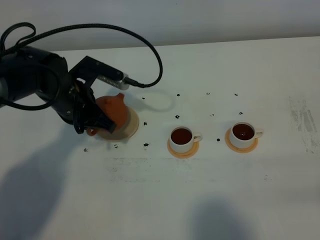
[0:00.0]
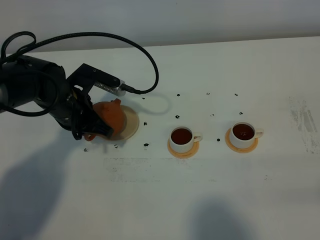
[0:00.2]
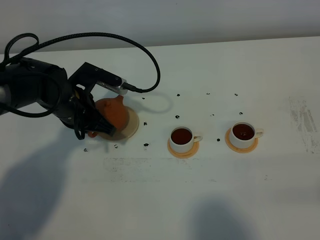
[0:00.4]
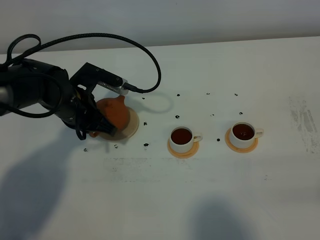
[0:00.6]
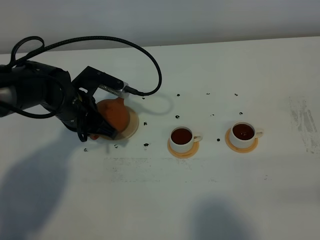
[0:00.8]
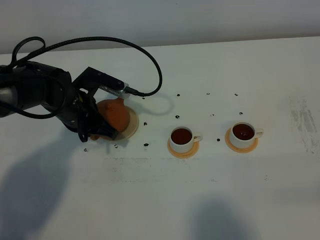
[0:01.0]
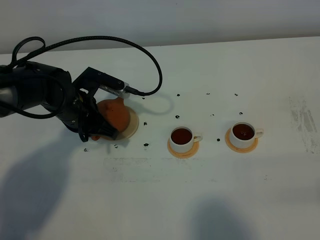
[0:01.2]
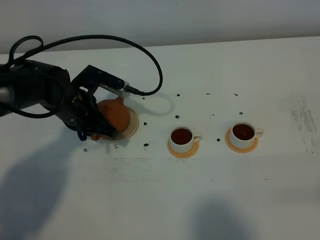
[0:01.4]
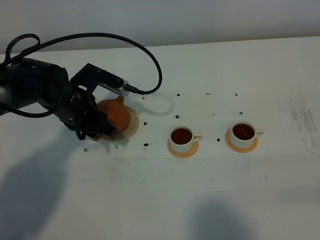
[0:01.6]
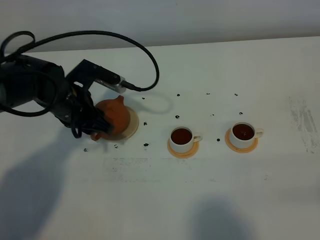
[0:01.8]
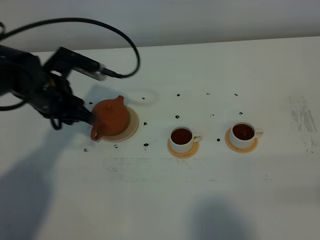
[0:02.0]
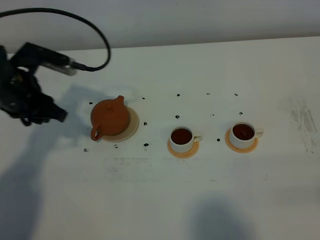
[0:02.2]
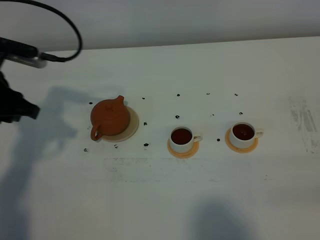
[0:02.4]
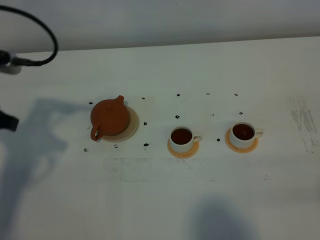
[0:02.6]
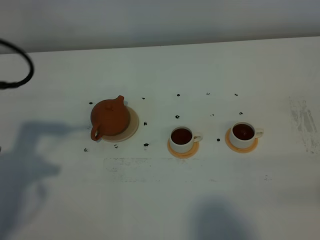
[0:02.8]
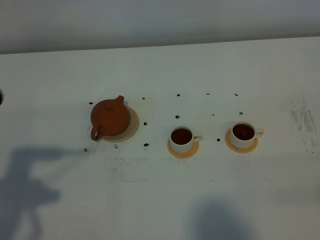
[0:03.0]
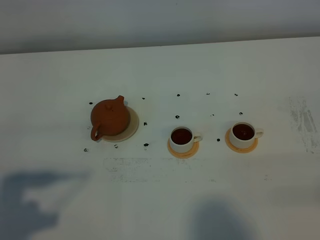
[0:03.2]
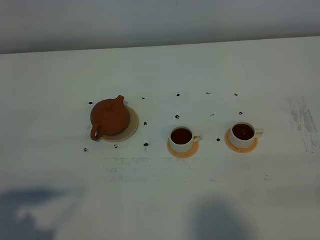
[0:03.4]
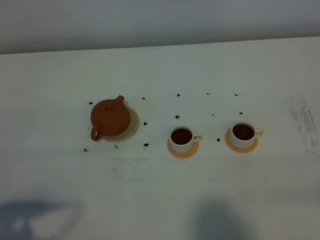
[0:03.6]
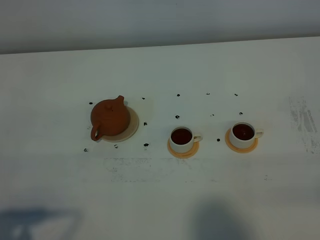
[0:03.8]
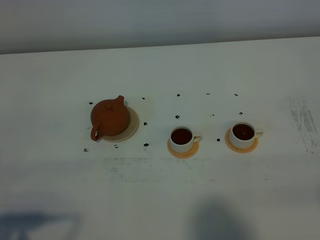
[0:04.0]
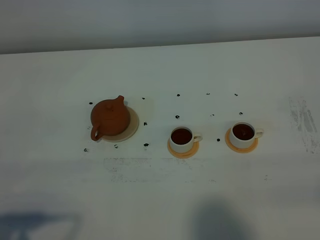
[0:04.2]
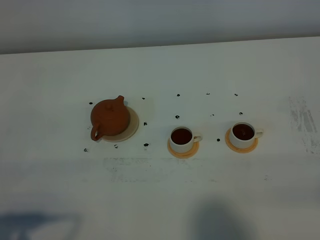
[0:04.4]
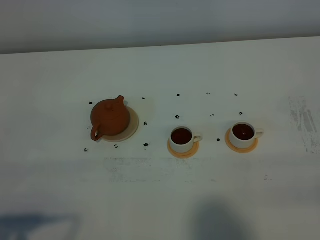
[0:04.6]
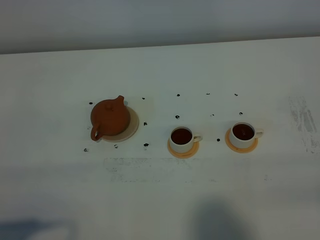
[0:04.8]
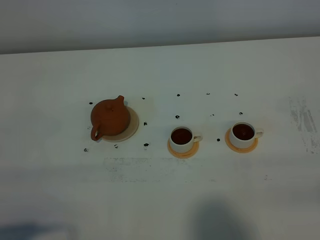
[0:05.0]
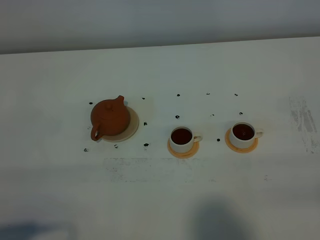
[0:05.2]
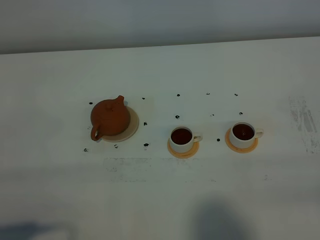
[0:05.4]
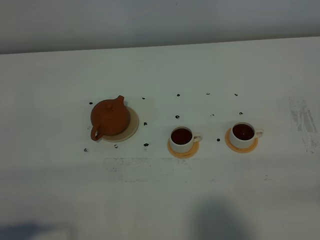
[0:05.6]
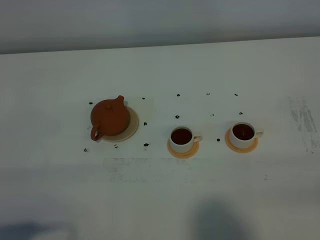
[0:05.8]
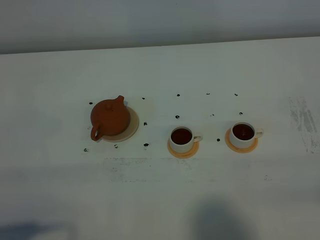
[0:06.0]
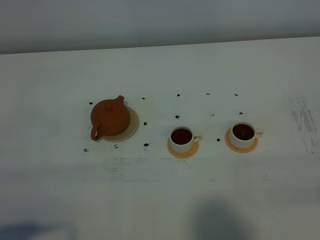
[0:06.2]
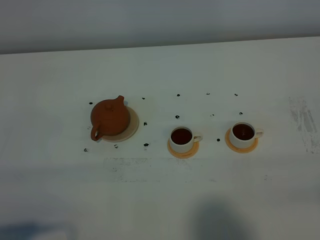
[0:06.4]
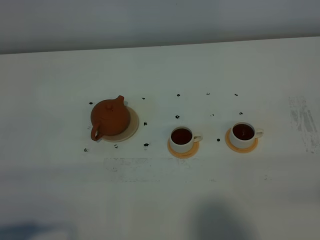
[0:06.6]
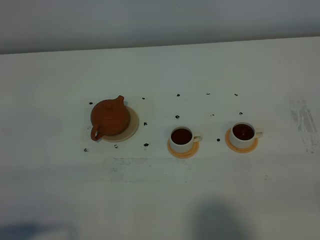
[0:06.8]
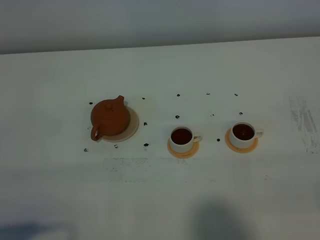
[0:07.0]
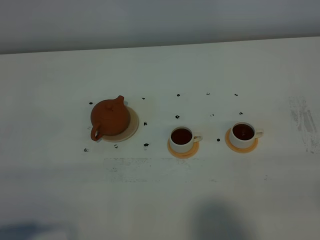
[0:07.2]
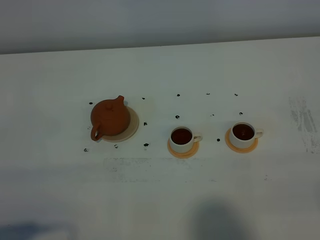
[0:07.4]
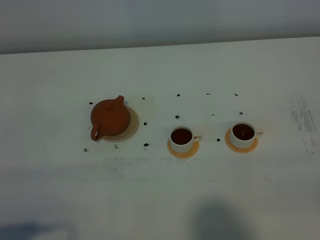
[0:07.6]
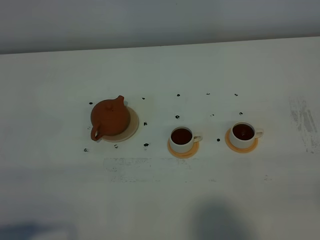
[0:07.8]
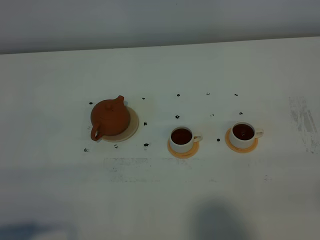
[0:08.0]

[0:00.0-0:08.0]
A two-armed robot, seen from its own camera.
Task of the whole recording: grasp the brown teapot and pour the tea into the two white teacups one by one, put the brown teapot back in its original place.
0:00.0 to 0:01.6: The left gripper opens its fingers.
0:01.6 to 0:03.2: The left gripper shifts some 35 cm backward, upward and to the left.
0:03.2 to 0:04.8: The left gripper is displaced backward by roughly 5 cm.
0:04.8 to 0:06.4: The two grippers keep their place.
